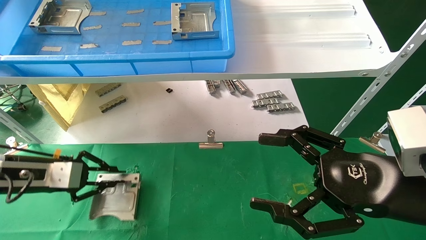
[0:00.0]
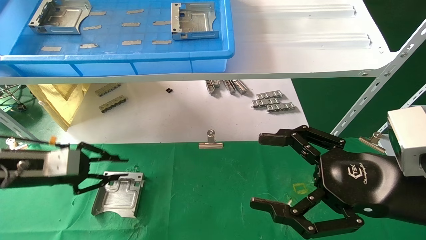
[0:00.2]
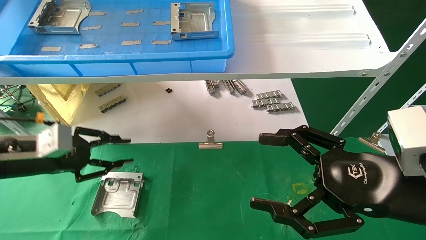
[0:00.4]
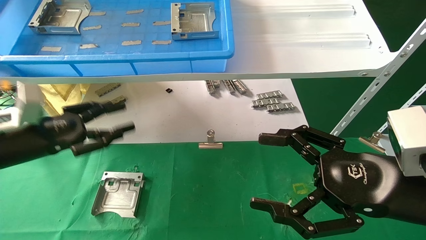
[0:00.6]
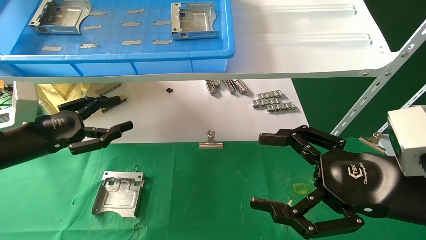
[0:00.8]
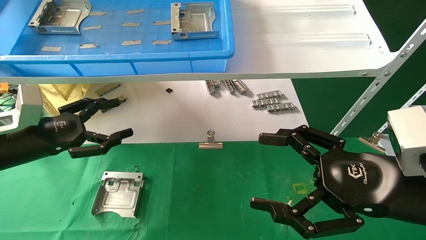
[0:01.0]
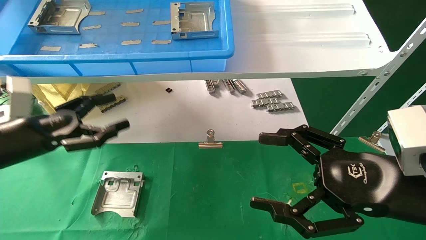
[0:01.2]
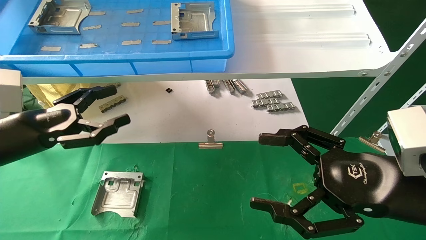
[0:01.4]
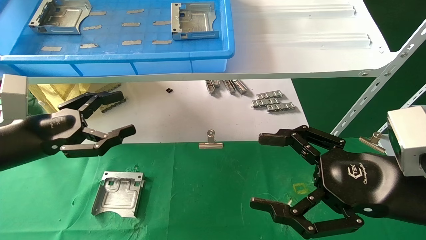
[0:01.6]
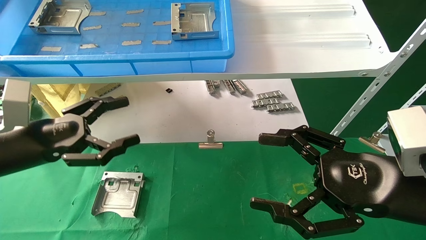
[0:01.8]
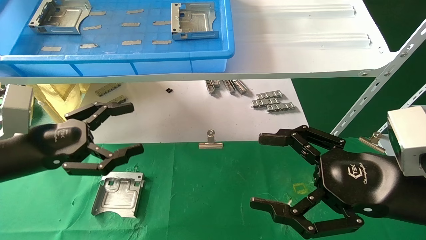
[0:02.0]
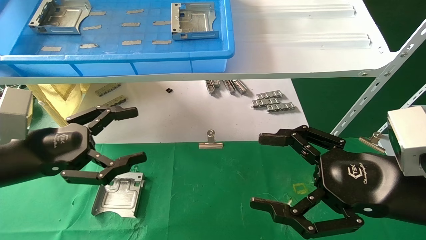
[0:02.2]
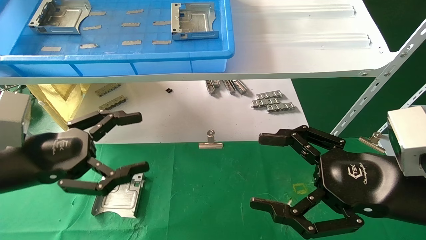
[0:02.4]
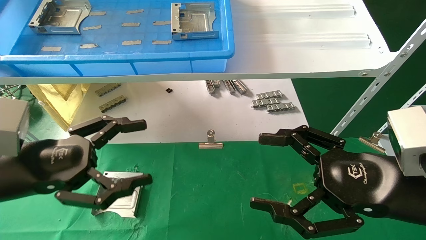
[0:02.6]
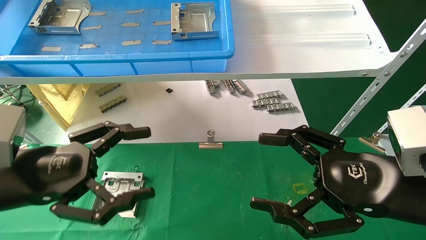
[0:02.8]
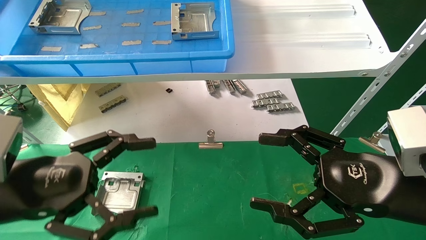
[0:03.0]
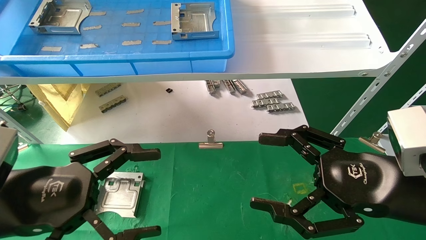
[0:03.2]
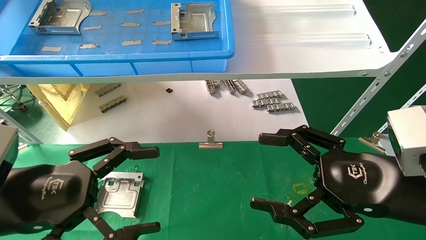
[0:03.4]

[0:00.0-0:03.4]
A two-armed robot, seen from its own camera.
Task of the whole recording: use the mechanical arm to pick up the parts and place them on the table.
0:00.0 to 0:01.6: The left gripper moves approximately 5 cm, and opens its fingers.
0:01.6 to 0:03.4: The left gripper goes some 15 cm backward and to the right.
